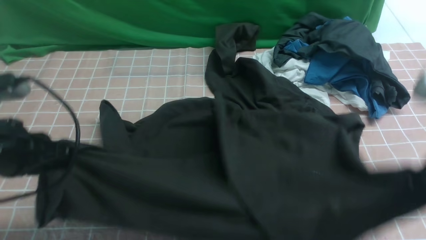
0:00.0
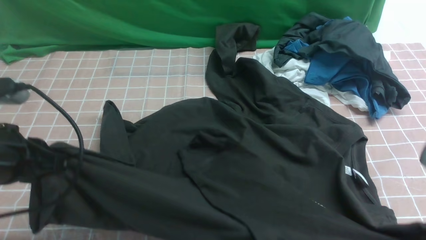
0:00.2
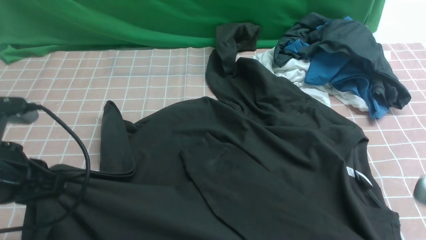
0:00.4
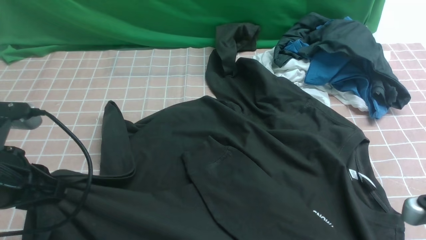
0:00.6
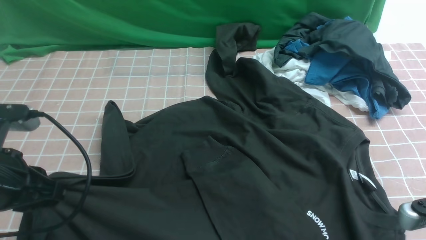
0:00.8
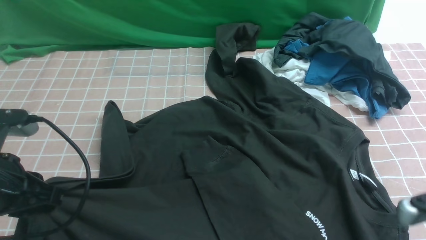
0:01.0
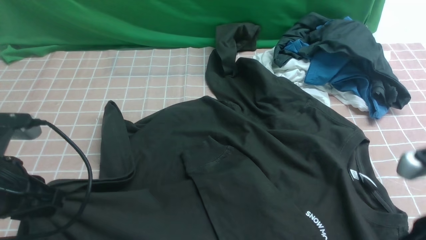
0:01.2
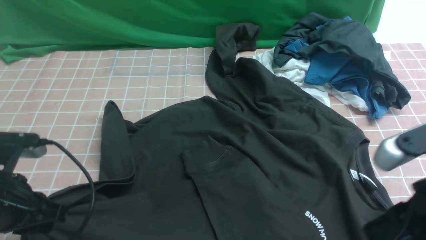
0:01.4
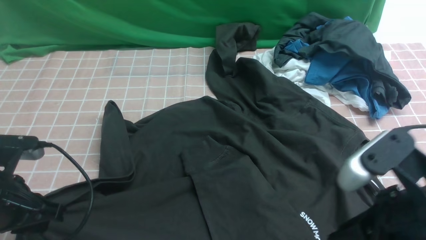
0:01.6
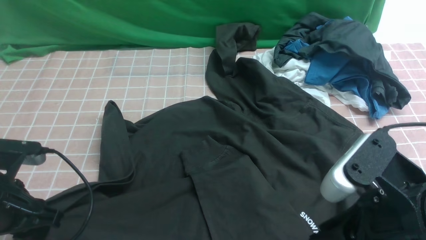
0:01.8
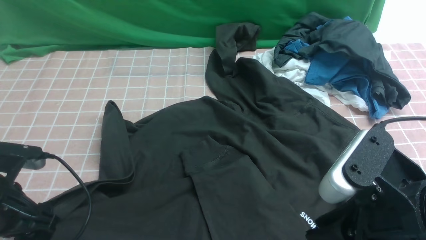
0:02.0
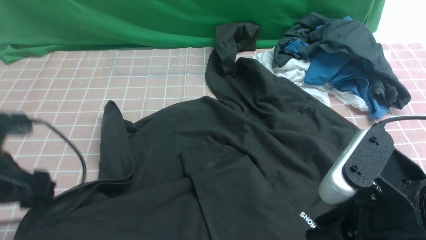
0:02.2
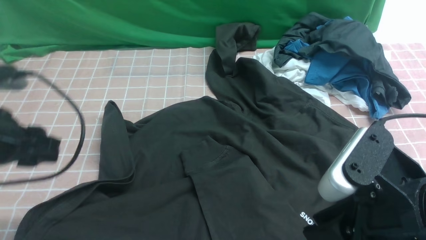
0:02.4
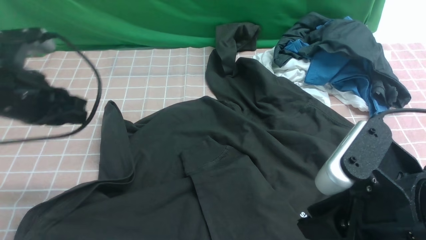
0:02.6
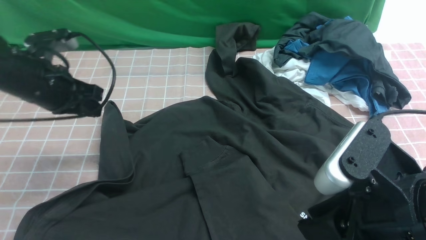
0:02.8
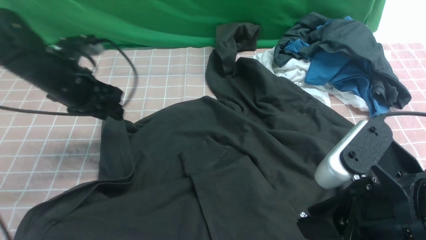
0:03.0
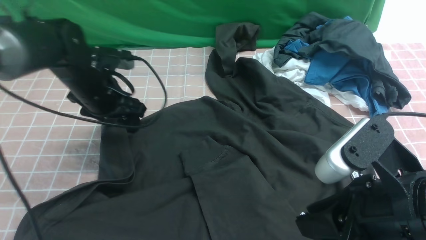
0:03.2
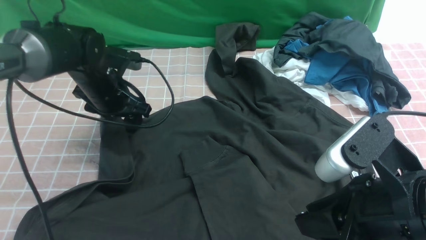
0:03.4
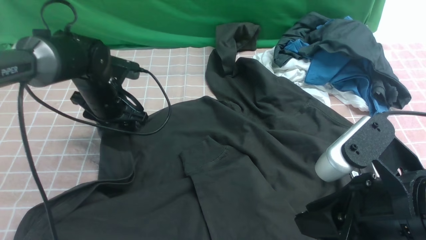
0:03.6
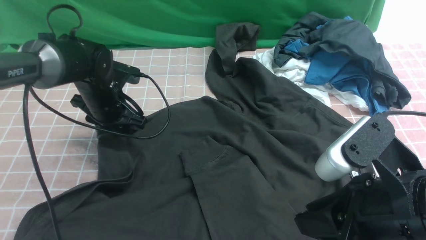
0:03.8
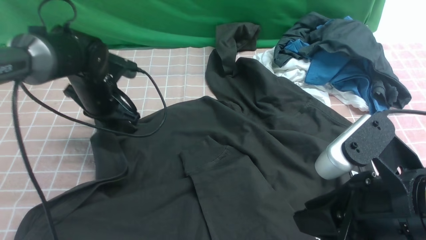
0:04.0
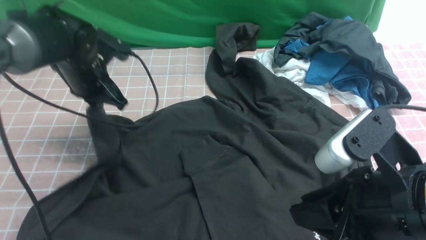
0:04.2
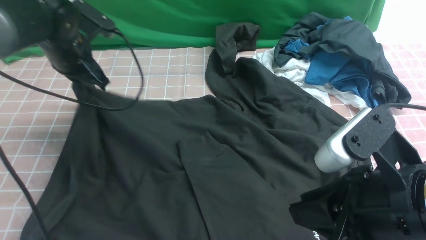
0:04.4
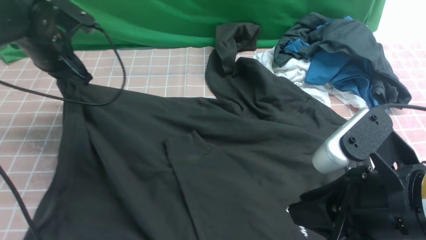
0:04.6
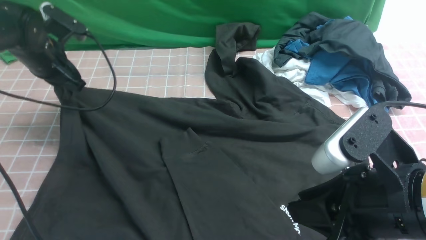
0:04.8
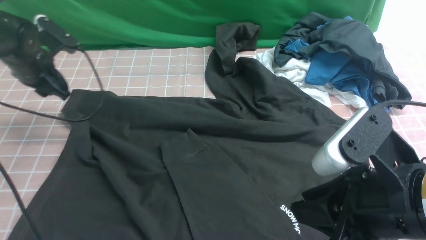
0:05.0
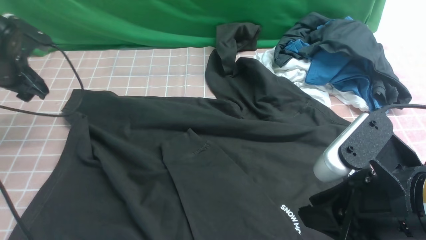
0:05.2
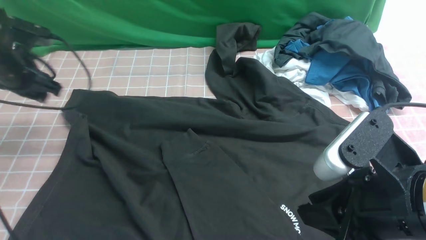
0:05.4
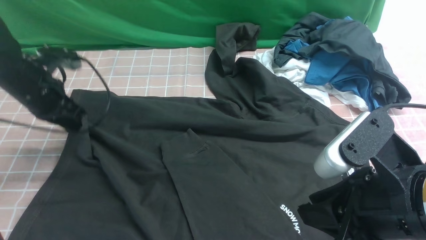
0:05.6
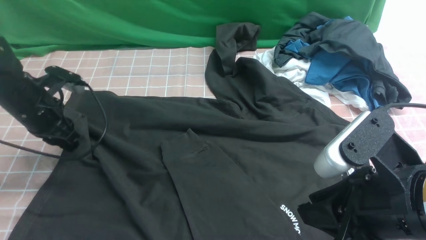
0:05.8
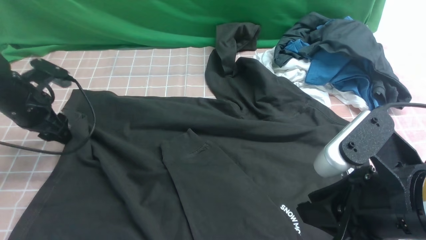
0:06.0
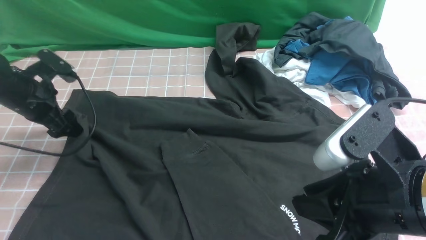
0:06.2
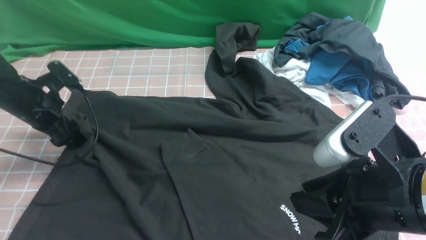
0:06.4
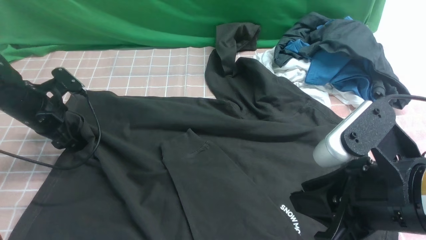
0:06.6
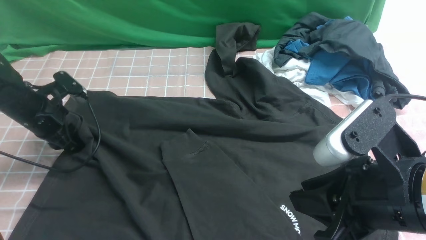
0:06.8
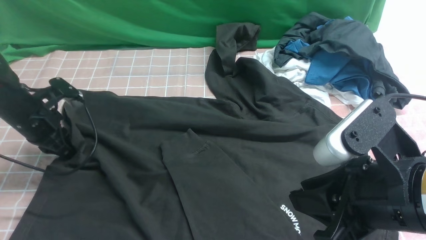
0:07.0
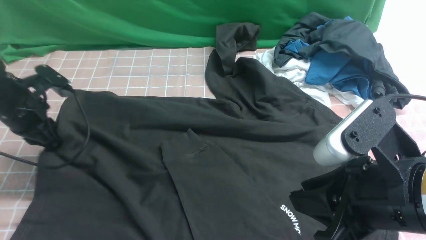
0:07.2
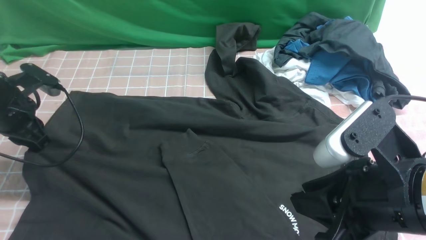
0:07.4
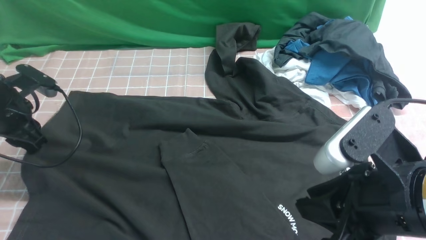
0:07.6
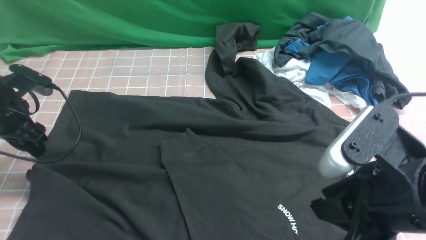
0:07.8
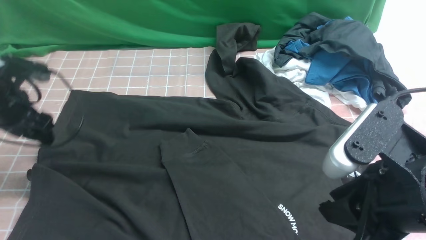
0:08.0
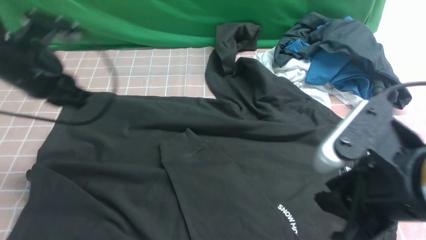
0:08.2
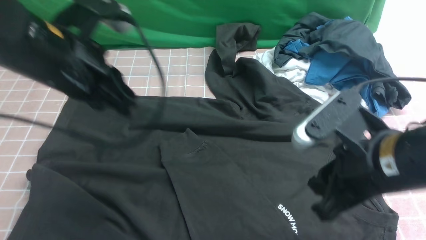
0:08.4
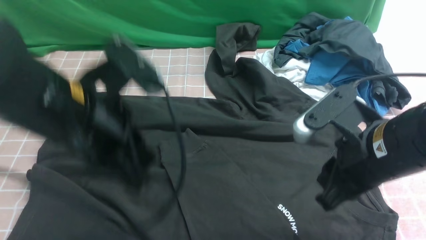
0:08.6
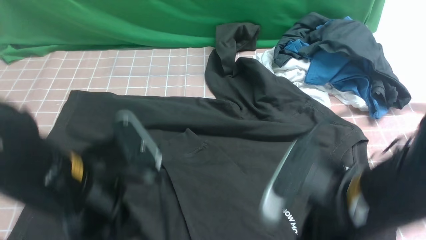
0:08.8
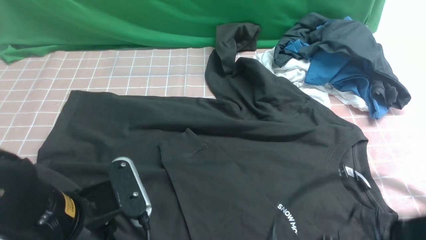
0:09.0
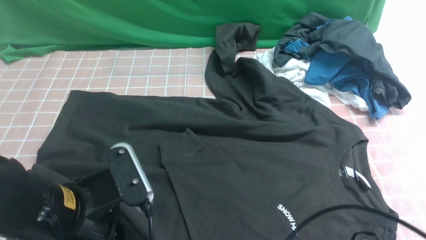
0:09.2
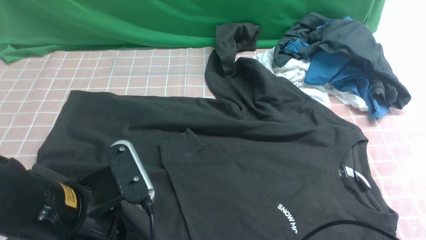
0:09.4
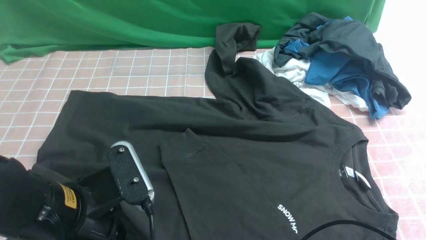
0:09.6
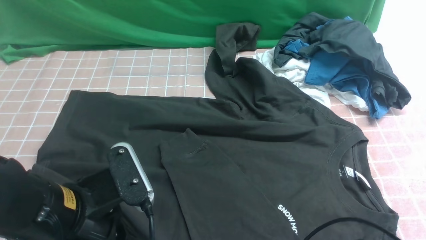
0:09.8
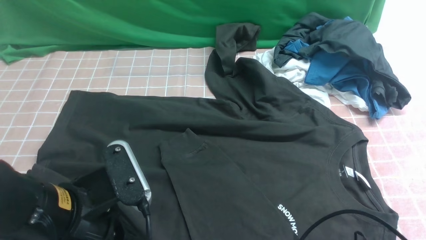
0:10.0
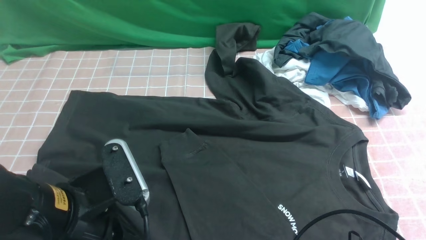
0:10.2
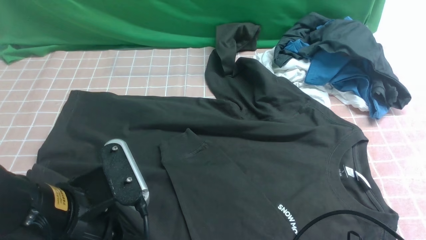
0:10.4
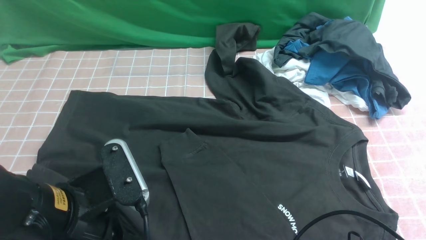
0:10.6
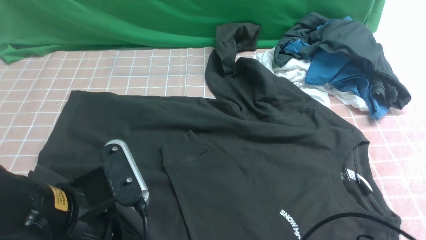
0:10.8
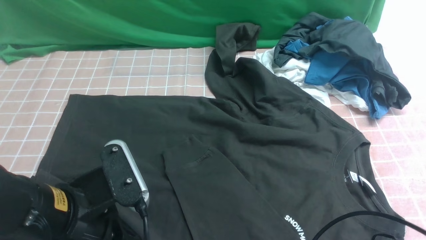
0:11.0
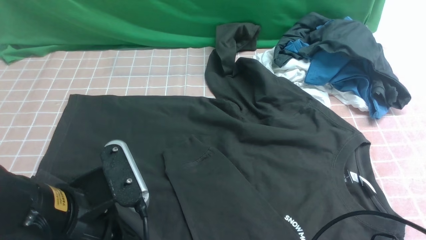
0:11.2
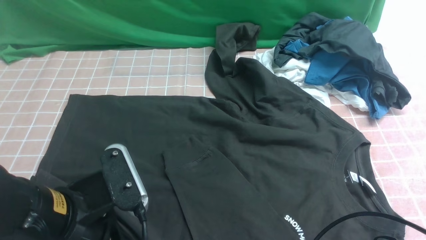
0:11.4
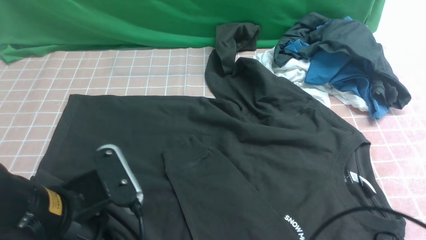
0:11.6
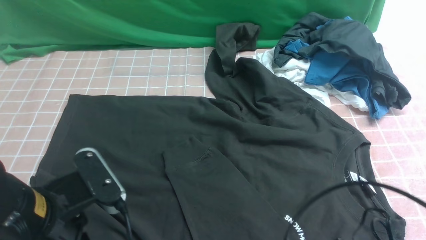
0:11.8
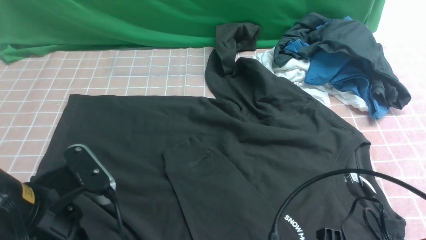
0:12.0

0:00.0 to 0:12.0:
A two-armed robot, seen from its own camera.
0:00.0 to 0:01.6: The right gripper travels to the left by roughly 5 cm. Meanwhile the left gripper heads downward, covering approximately 5 cm.
0:01.6 to 0:03.0: The left gripper travels forward by approximately 20 cm, and opens its fingers.
0:03.0 to 0:04.4: The left gripper goes downward and returns, about 5 cm each way, and closes its fingers.
0:04.4 to 0:06.0: The left gripper is displaced to the left and downward by some 10 cm, and opens its fingers.
0:06.0 to 0:07.6: The left gripper closes up.
0:07.6 to 0:09.0: The left gripper shifts about 25 cm to the right and backward, and closes its fingers. The right gripper heads downward and to the left, covering approximately 10 cm.
0:09.0 to 0:10.4: The right gripper goes approximately 5 cm downward, and closes up.
0:10.4 to 0:12.0: The right gripper goes some 10 cm upward.

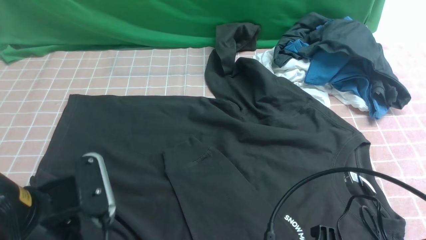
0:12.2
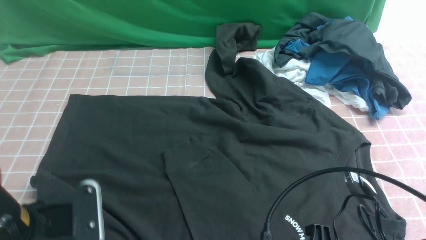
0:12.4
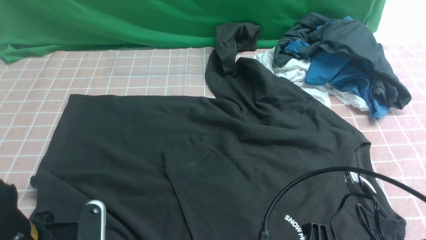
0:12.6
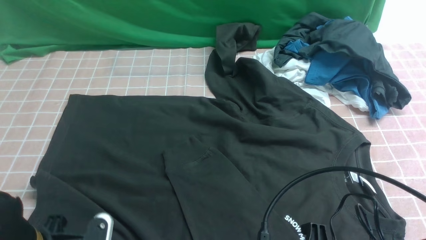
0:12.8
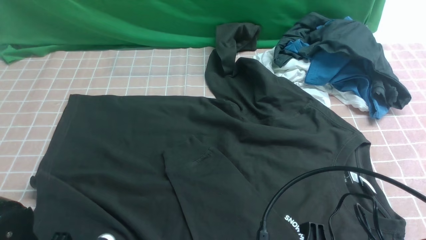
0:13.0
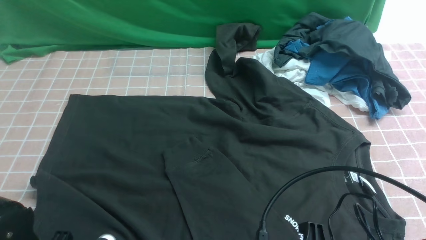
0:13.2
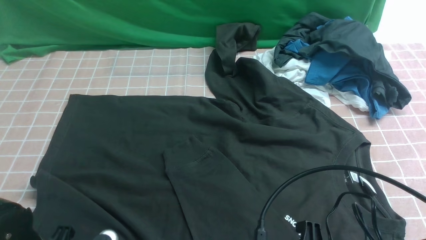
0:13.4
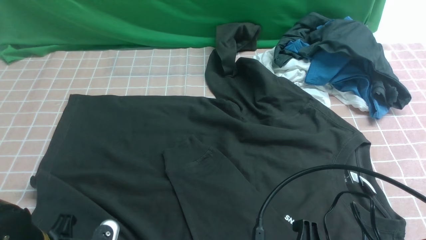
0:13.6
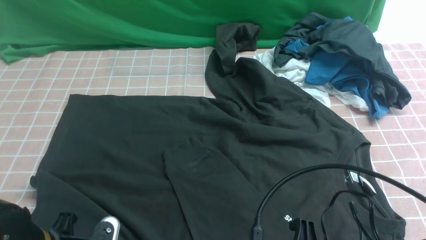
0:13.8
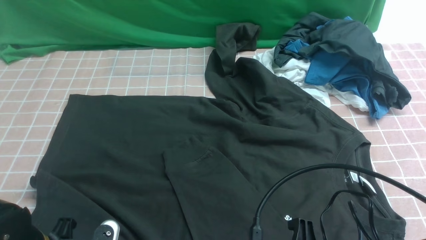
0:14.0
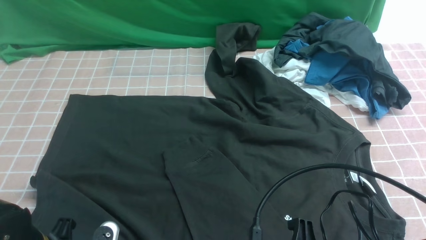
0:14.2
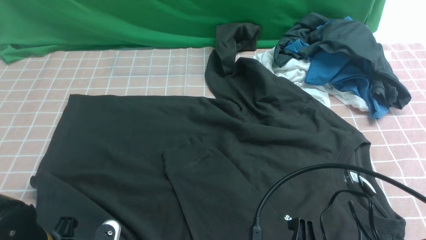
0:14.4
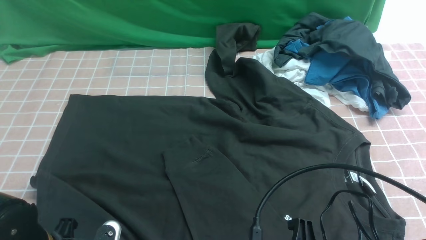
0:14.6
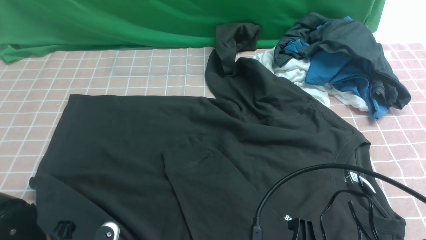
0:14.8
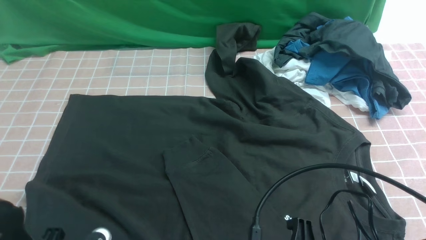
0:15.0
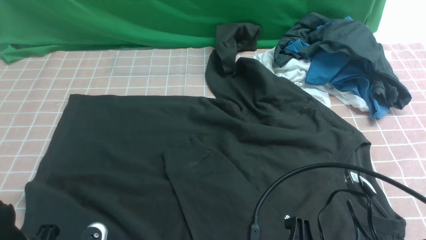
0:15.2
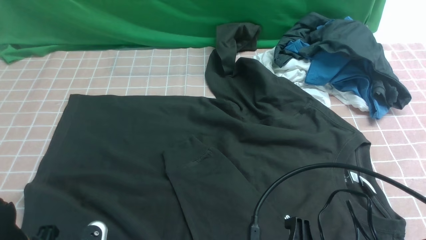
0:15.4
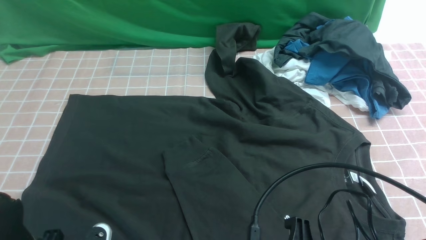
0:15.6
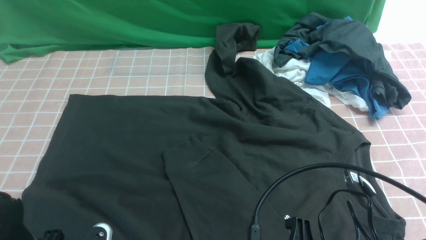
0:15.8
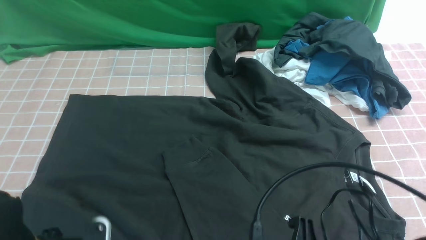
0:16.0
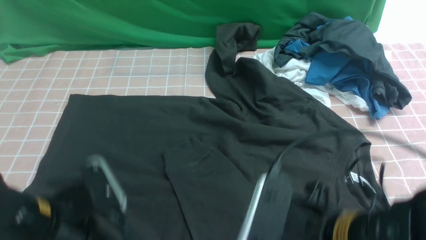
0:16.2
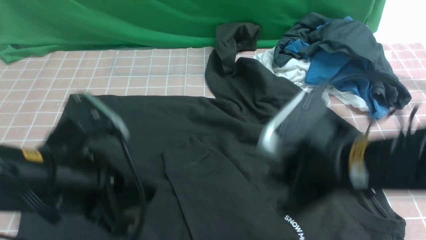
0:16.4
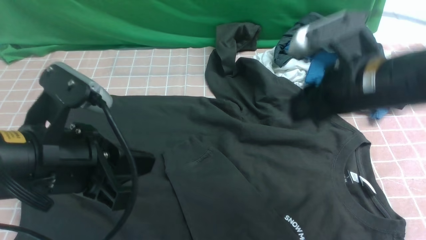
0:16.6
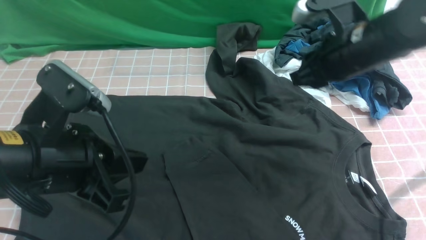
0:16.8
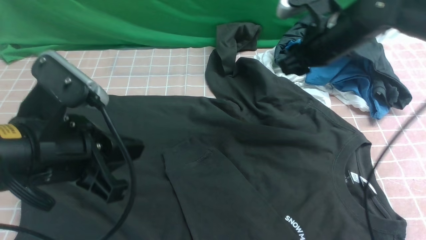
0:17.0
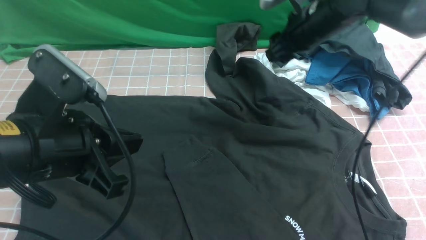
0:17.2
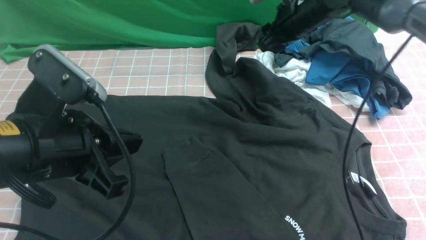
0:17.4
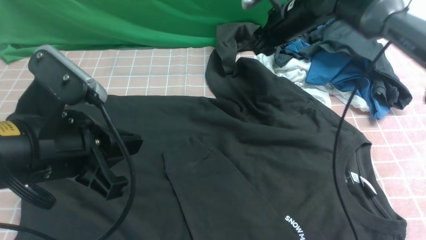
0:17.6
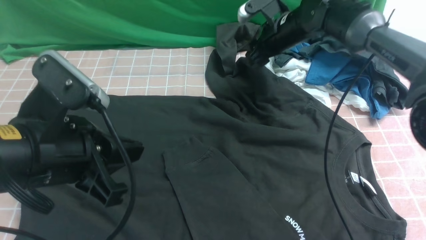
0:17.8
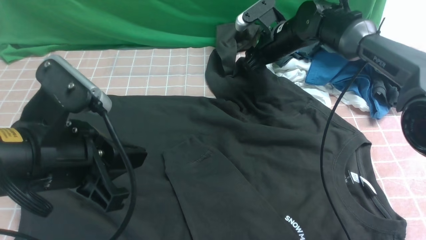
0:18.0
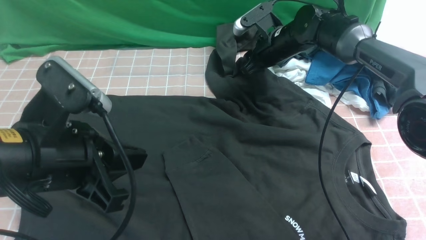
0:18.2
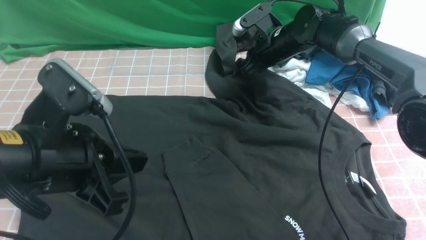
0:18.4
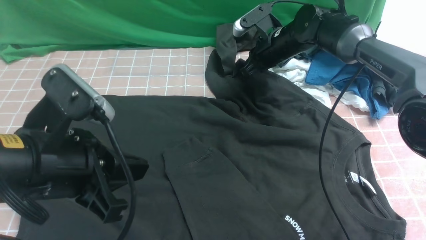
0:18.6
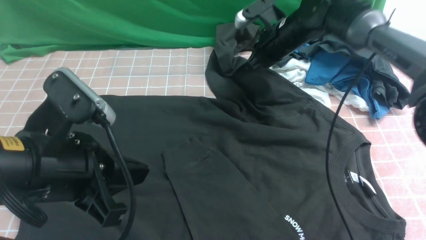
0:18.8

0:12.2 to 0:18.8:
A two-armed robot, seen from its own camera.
0:12.2 to 0:13.8: The left gripper goes approximately 10 cm downward, and opens up.
0:13.8 to 0:15.4: The left gripper closes up.
0:15.4 to 0:17.2: The right gripper moves forward, some 40 cm. Meanwhile the left gripper goes roughly 15 cm upward and forward, and opens, then closes once more.
0:17.2 to 0:18.8: The right gripper moves downward, some 5 cm, and closes.
